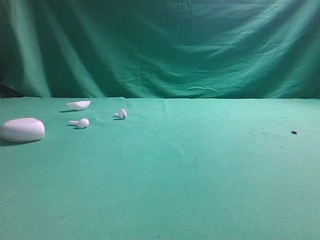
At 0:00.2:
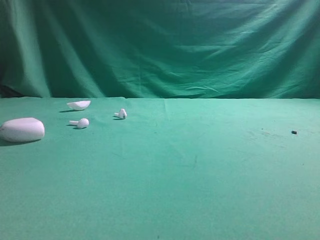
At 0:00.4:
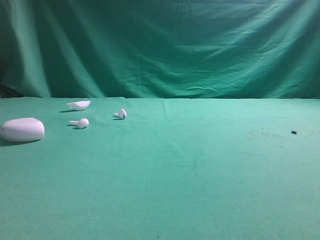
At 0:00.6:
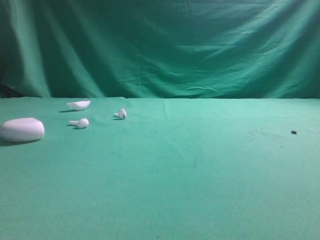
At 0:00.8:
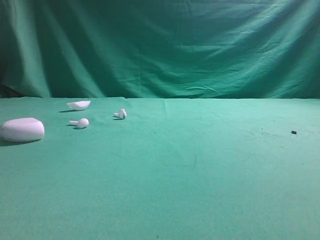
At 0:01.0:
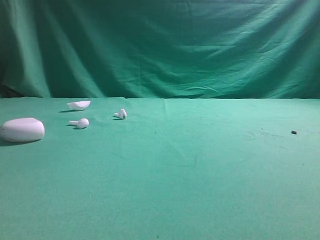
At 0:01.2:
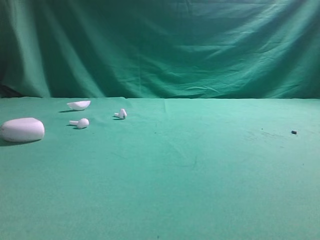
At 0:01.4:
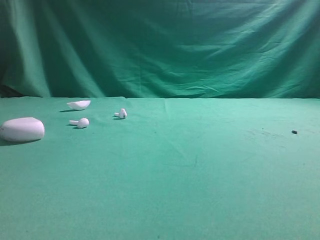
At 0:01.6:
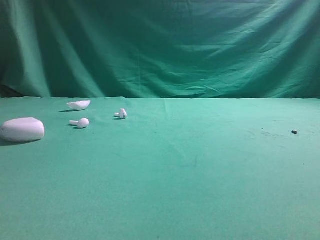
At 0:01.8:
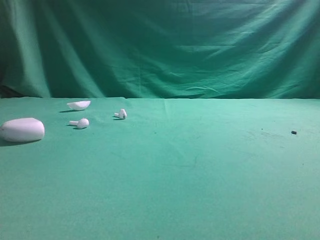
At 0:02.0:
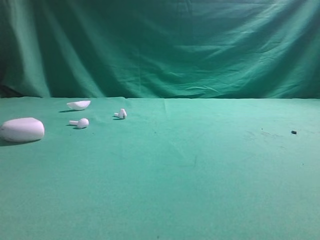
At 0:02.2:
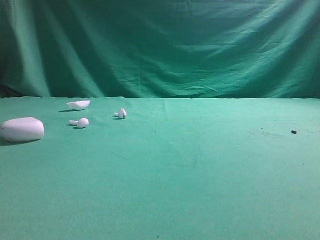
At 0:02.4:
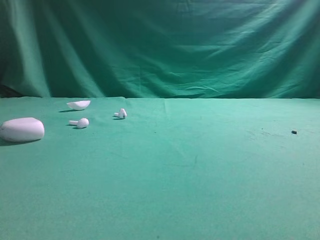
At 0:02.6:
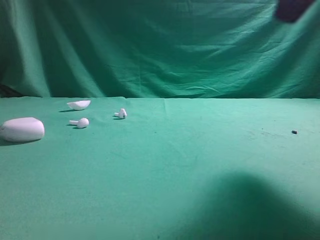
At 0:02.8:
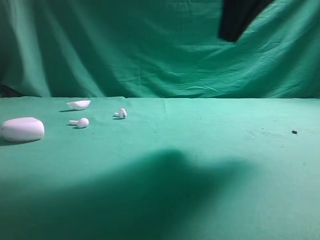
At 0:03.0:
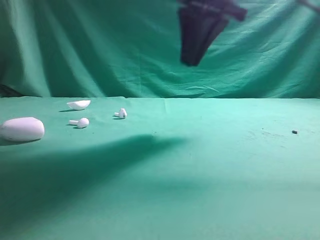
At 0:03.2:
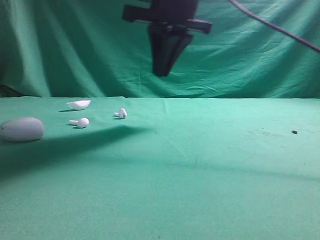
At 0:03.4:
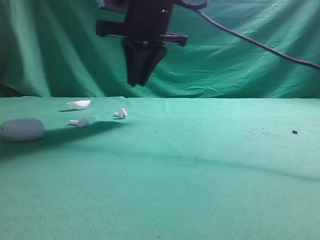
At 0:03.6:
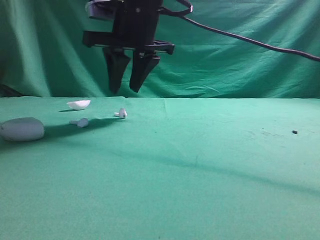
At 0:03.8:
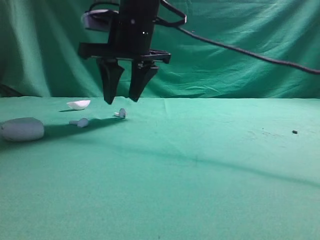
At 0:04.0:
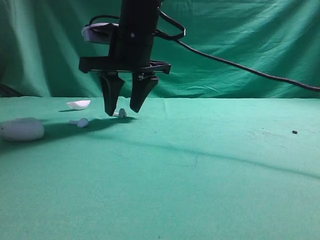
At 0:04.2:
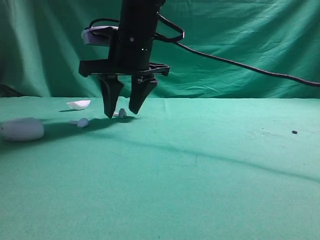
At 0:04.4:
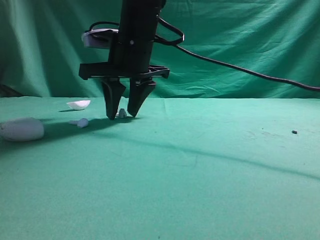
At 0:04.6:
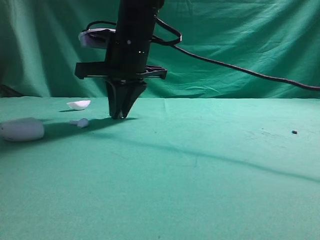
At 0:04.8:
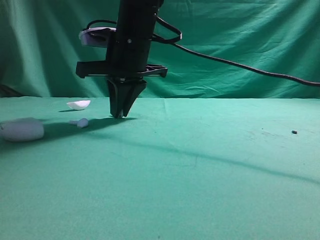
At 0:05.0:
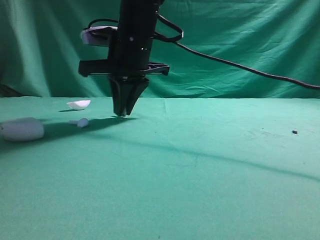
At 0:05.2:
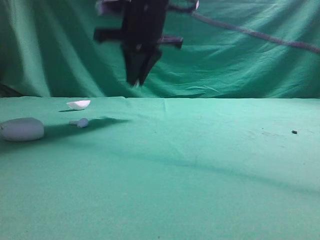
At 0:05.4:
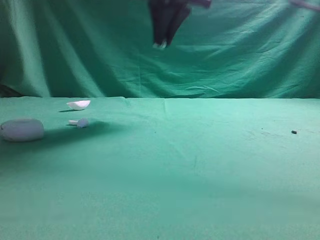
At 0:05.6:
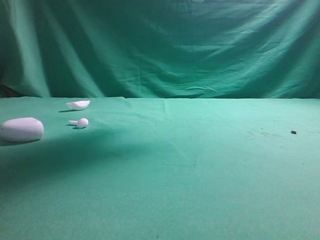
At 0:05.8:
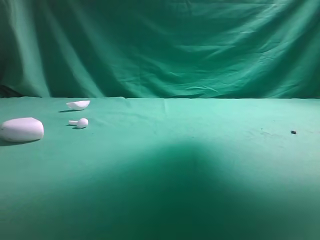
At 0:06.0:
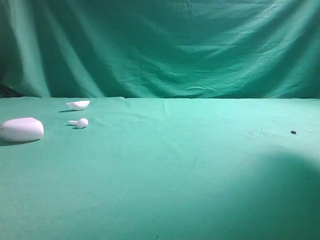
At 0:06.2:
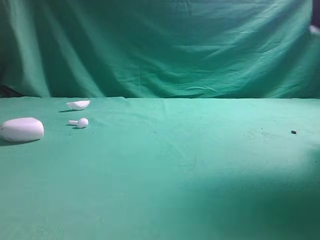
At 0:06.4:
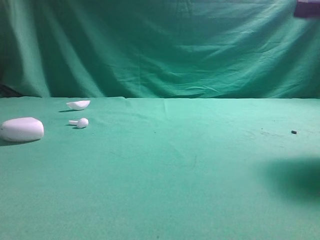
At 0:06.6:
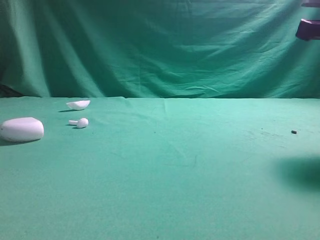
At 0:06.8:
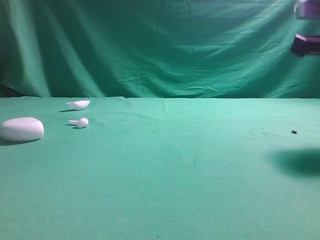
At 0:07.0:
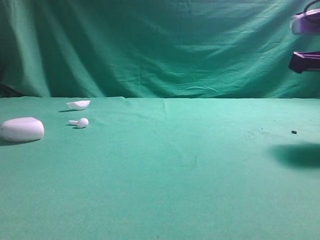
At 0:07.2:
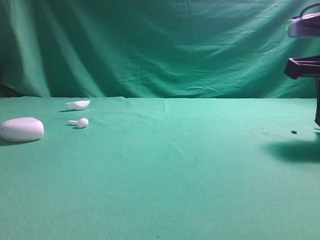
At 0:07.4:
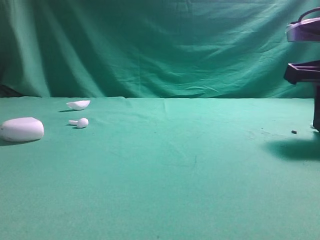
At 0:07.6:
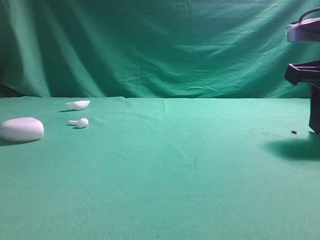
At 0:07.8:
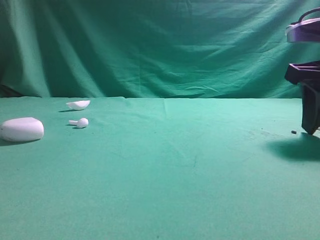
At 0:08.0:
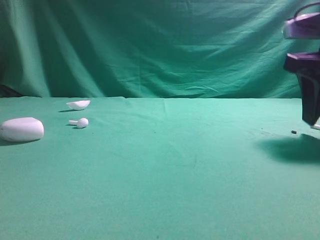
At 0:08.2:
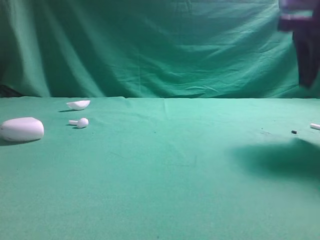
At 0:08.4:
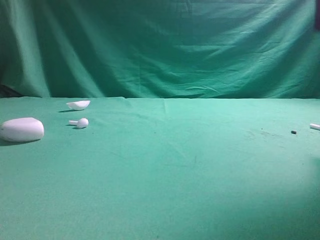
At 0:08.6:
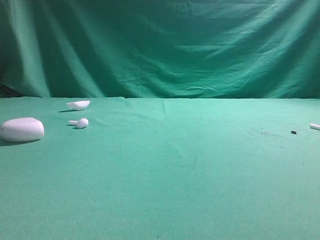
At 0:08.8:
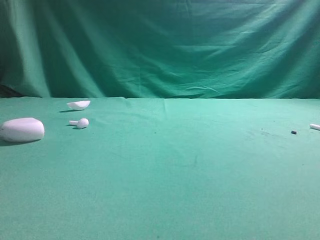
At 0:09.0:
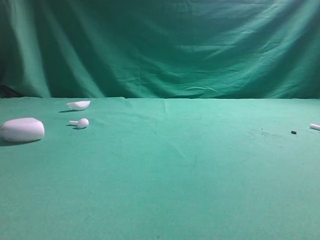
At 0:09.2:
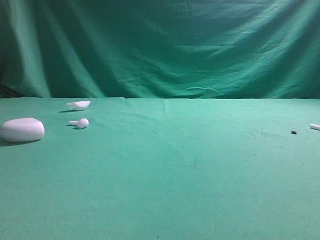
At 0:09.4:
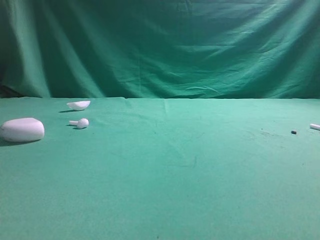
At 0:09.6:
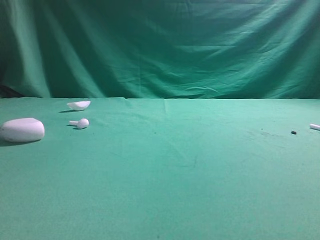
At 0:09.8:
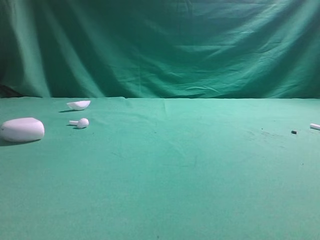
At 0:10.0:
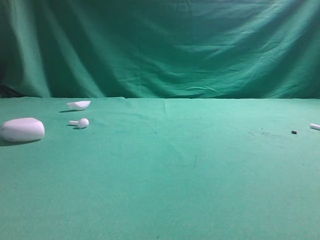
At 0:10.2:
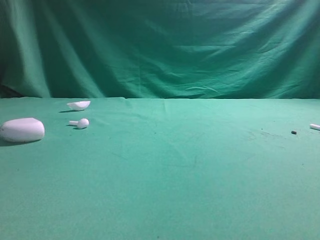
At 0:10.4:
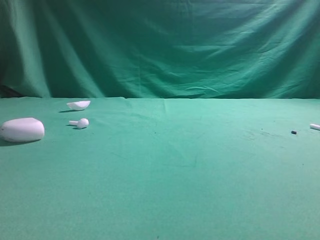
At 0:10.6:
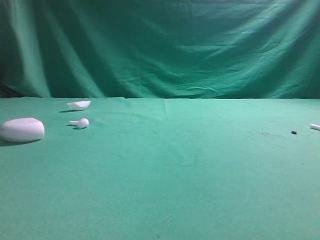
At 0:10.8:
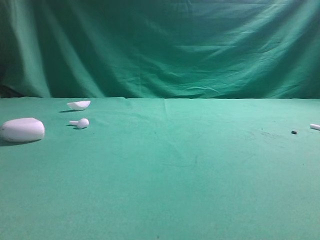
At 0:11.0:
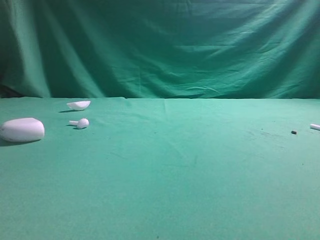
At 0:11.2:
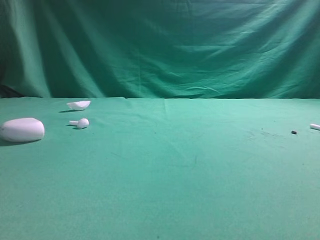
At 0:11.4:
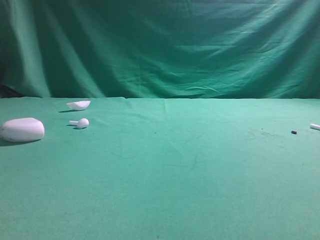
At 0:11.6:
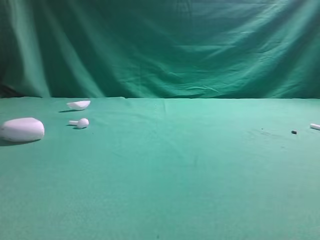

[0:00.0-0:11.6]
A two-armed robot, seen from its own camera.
Step, 0:00.0 to 0:05.0: Grasp the Bluetooth earbud.
Step, 0:05.2 to 0:08.0: Place bluetooth earbud on the right side of the table.

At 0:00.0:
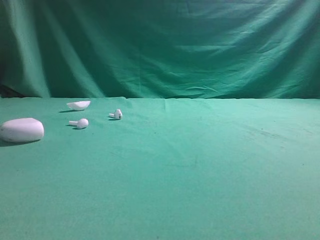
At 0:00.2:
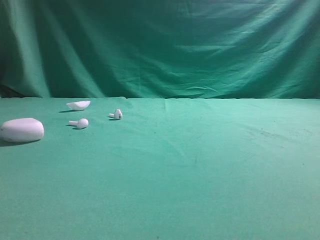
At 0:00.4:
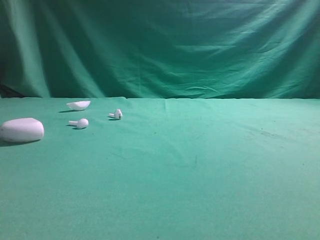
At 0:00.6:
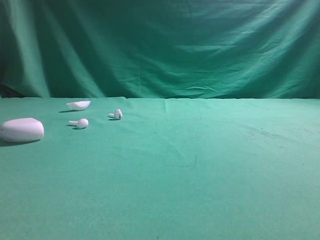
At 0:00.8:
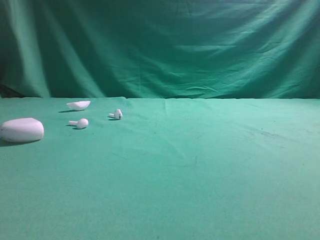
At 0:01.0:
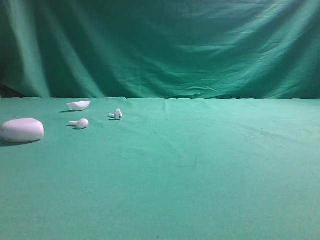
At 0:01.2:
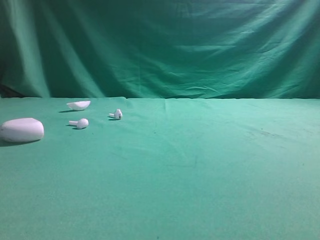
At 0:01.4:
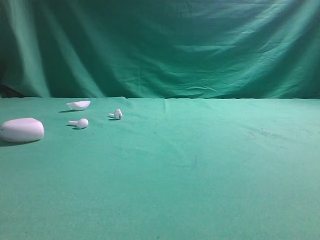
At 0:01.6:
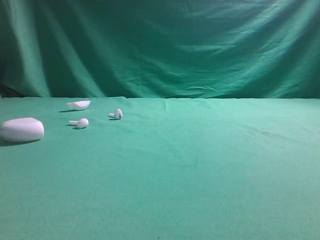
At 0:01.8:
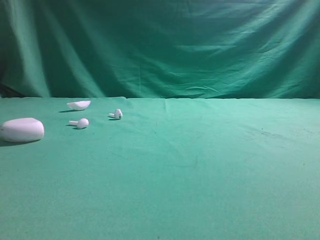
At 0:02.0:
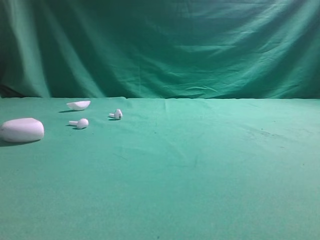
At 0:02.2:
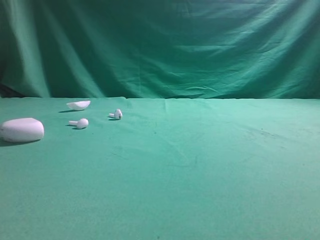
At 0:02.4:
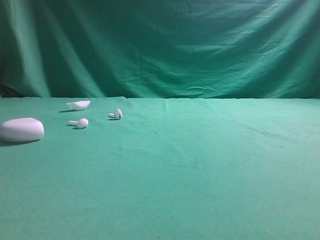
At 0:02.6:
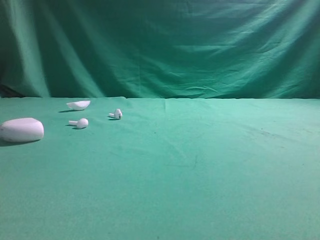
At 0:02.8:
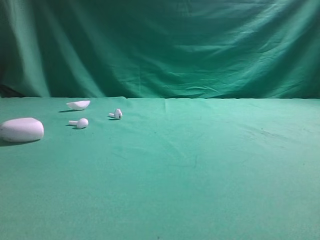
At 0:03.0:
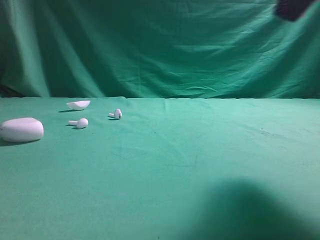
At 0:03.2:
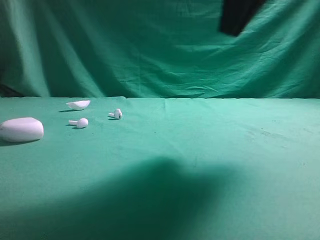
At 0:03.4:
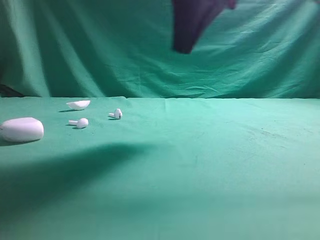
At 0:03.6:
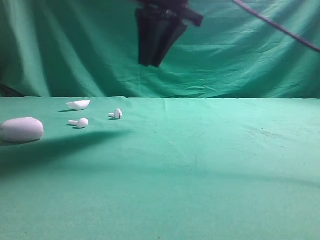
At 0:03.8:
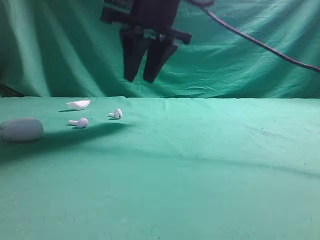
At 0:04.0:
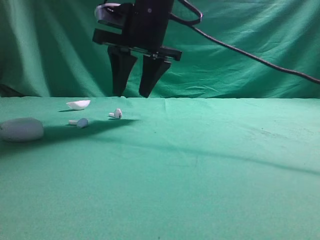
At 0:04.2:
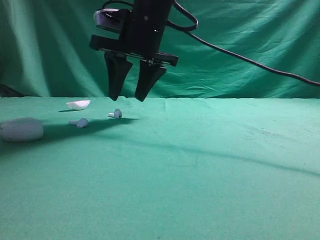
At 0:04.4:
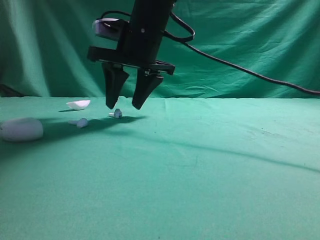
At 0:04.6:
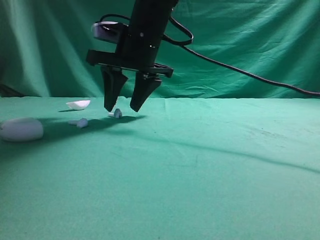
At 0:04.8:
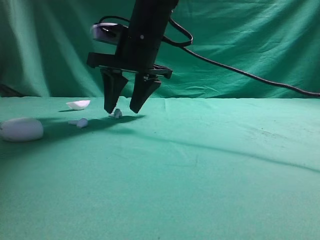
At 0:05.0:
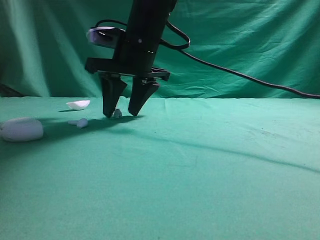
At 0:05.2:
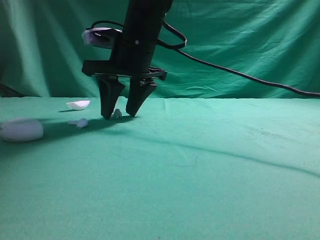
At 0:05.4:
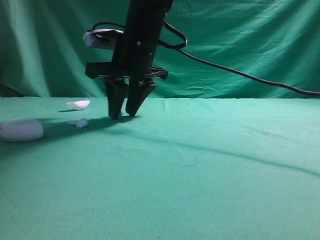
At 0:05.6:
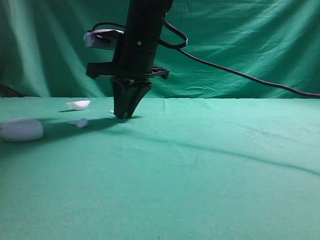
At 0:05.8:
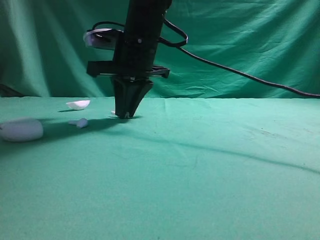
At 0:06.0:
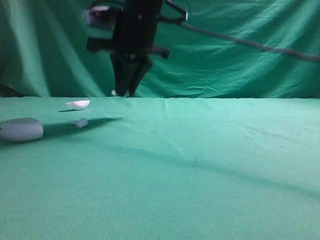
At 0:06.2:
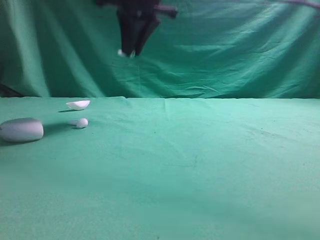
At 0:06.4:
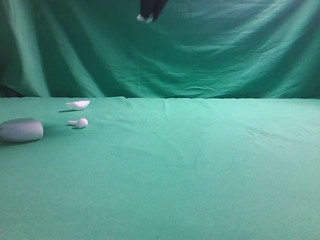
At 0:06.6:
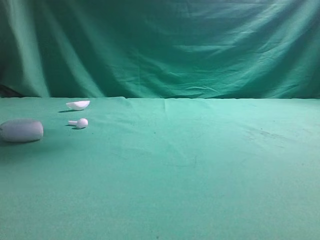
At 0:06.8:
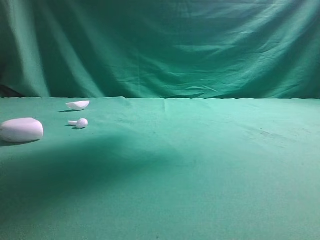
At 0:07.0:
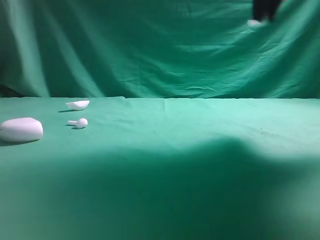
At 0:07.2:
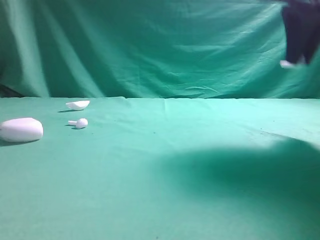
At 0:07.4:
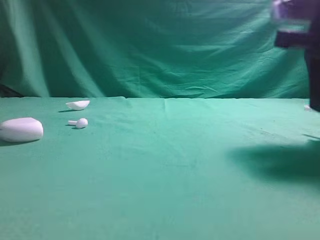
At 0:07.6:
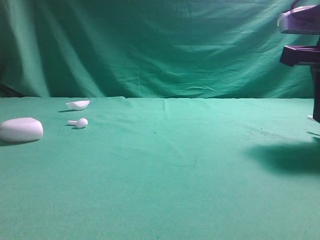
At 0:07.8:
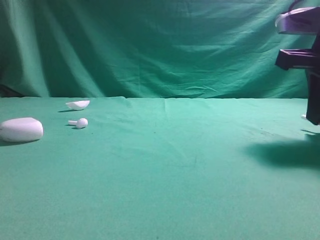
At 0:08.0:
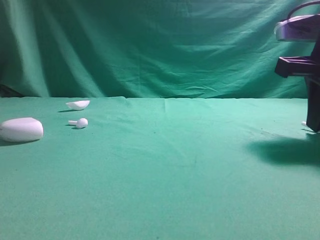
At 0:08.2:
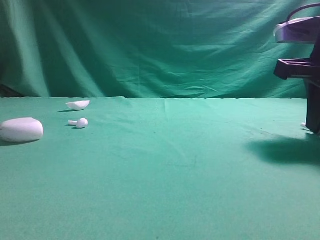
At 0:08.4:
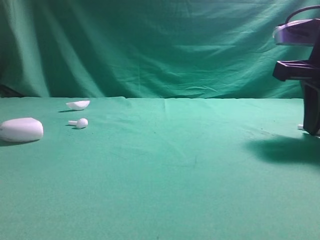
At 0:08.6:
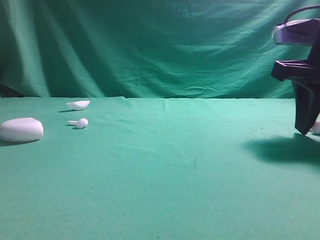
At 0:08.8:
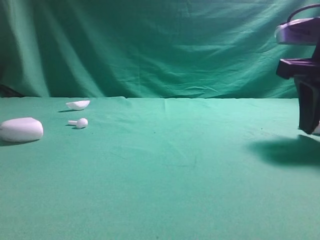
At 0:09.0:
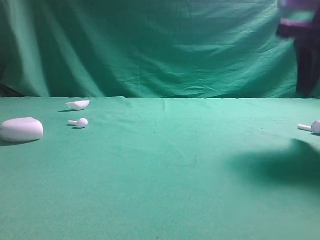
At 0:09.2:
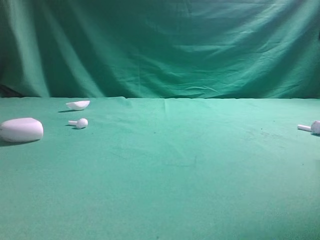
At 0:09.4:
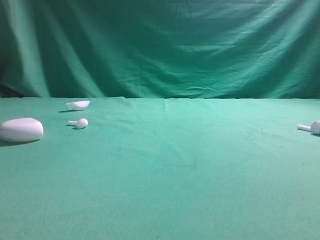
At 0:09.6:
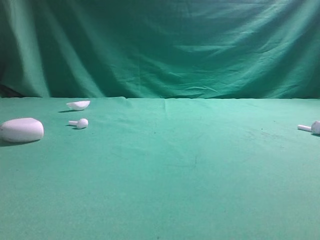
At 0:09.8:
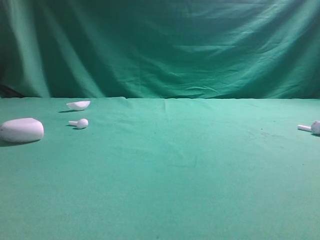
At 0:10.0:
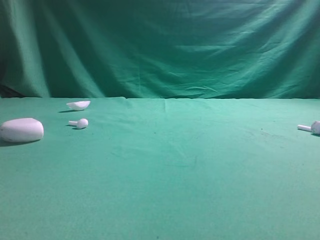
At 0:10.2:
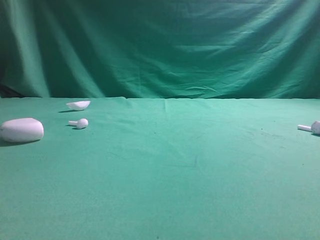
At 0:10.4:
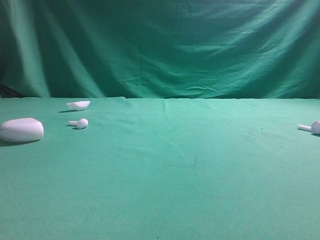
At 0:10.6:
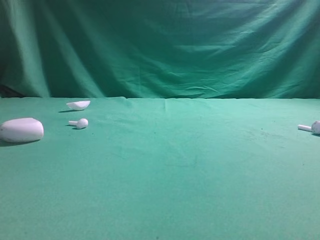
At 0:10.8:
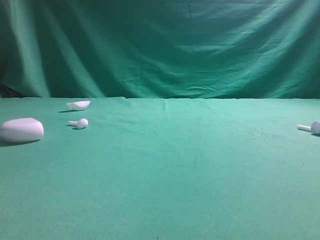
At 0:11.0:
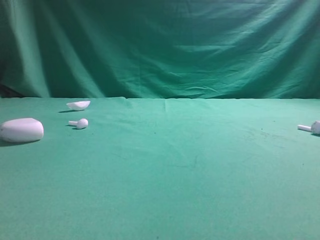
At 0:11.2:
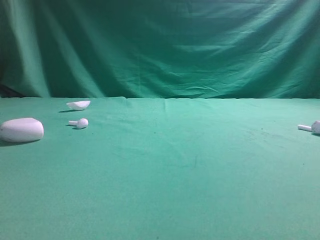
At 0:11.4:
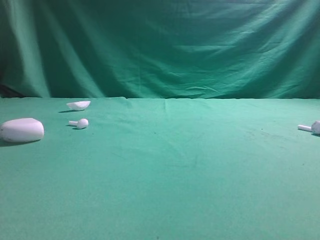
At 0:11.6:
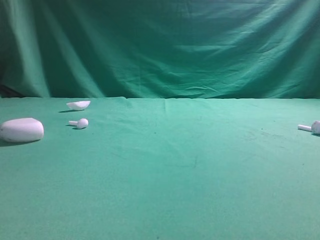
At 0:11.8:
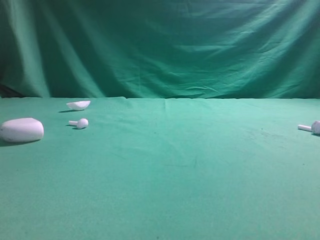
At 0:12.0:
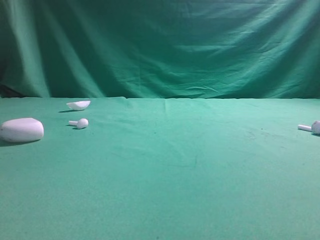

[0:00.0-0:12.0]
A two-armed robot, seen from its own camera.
Step, 0:00.0 to 0:05.6: Grasp the Bluetooth earbud.
Step, 0:05.8 to 0:08.4: Place bluetooth earbud on the right side of the table.
